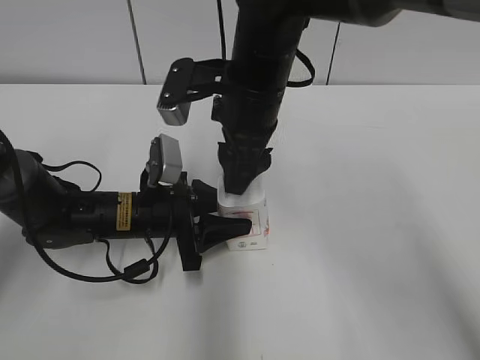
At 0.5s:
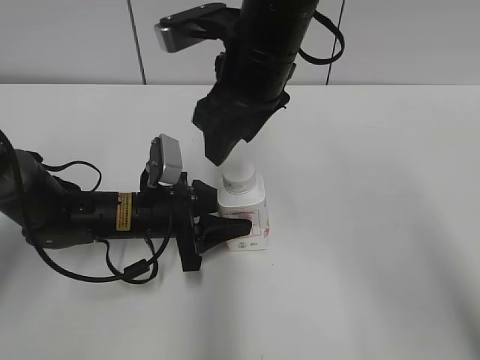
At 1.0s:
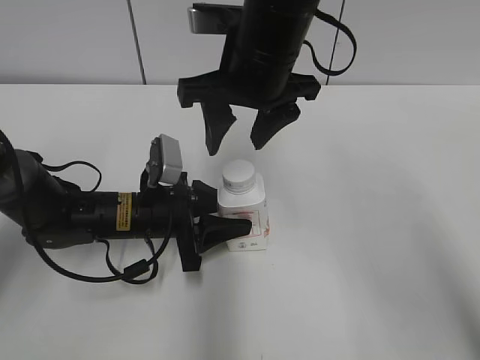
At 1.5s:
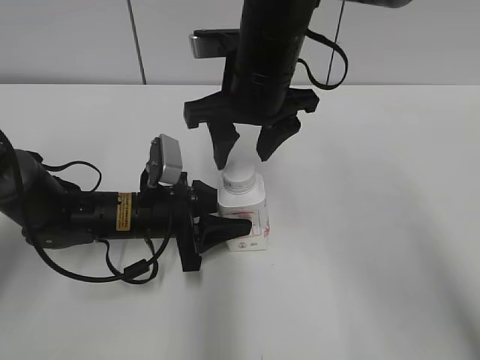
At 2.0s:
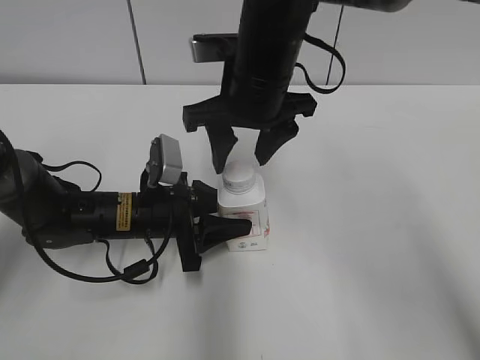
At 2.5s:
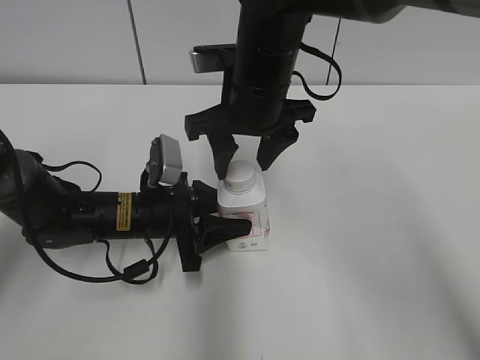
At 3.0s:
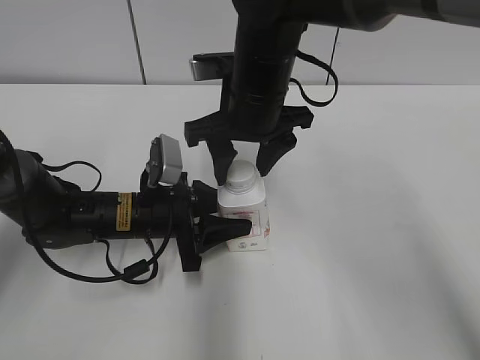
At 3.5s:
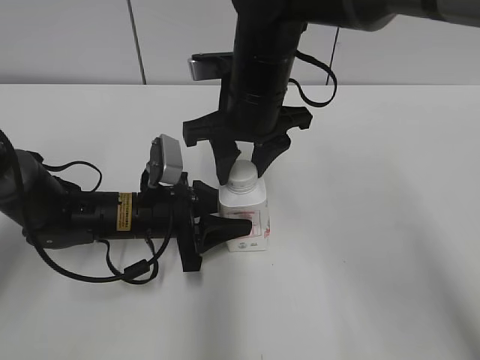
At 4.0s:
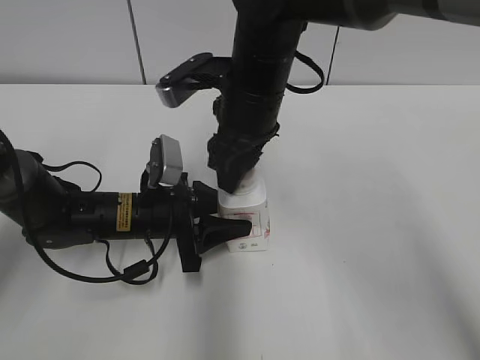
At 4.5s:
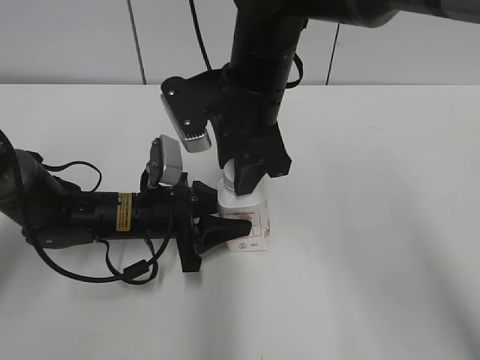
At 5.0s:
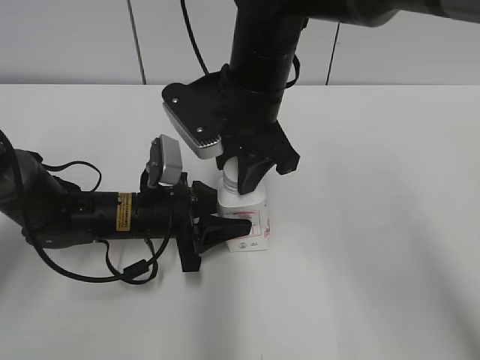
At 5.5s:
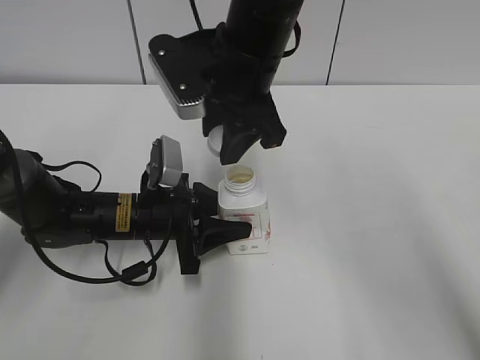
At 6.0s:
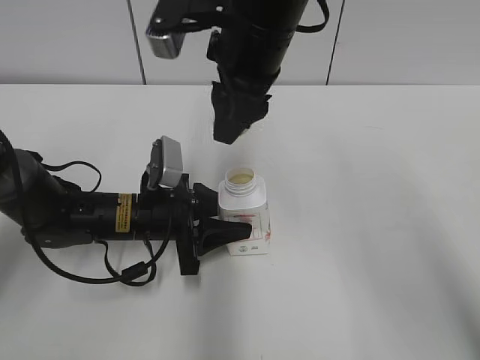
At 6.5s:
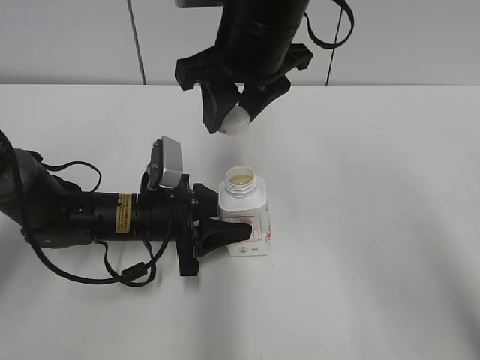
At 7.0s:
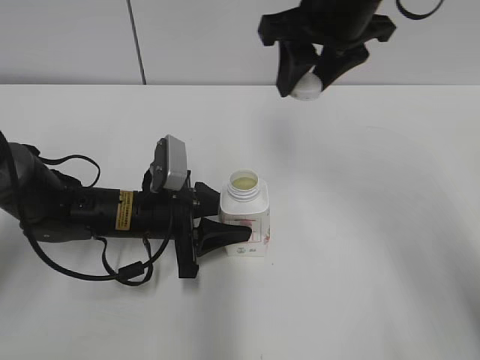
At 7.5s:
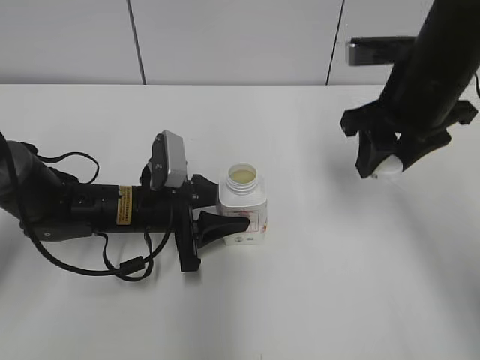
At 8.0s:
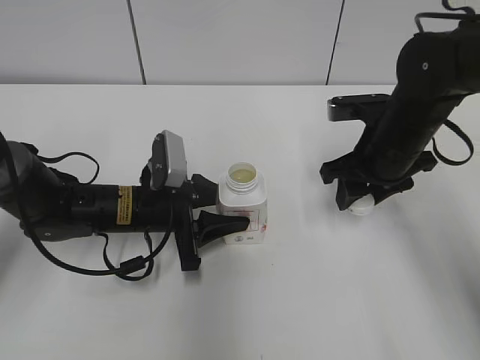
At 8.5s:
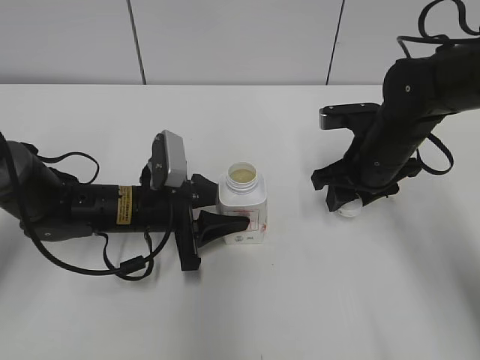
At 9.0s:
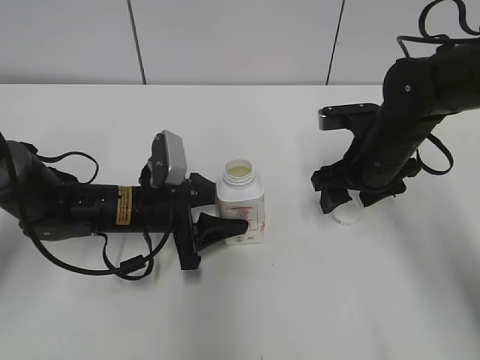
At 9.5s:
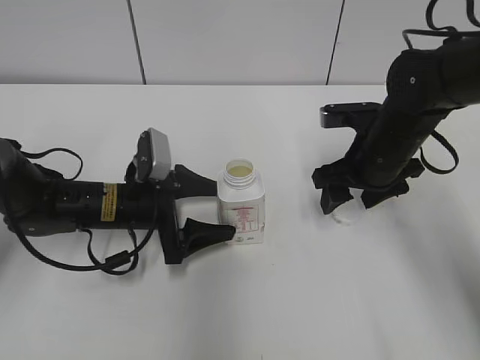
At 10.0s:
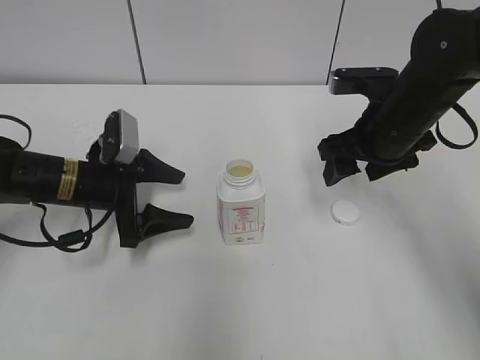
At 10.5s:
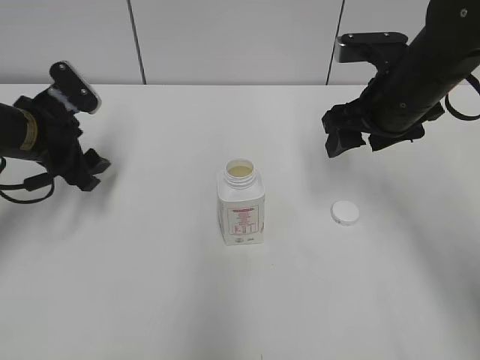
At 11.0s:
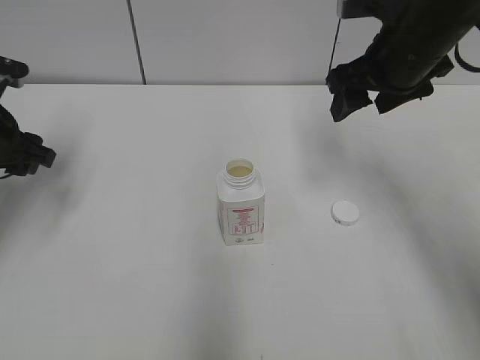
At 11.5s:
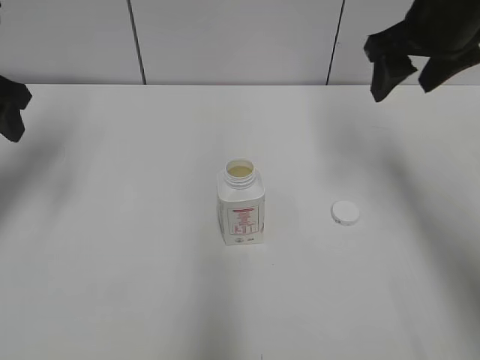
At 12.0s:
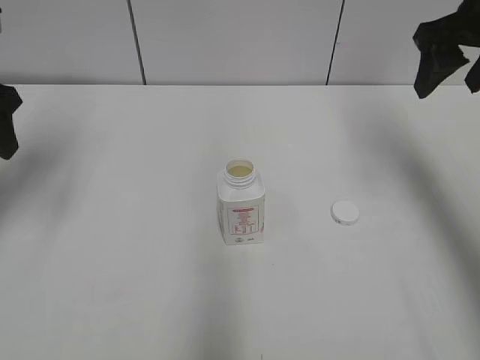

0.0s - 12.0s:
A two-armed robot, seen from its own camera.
Step, 5.5s - 8.5s: Place the bottle cap on the right.
2.0s - 4.0s: The right gripper closes.
4.0s - 6.0s: The right gripper shifts about 5 cm upward.
6.0s - 8.0s: The right gripper travels to the right and downward by some 20 cm.
8.0s - 10.0s: The right gripper opens up; the left gripper is displaced to the left by about 5 cm, and opens.
10.0s - 12.0s: The right gripper shifts approximately 15 cm upward and to the right, while the left gripper travels upward and to the left by some 20 cm.

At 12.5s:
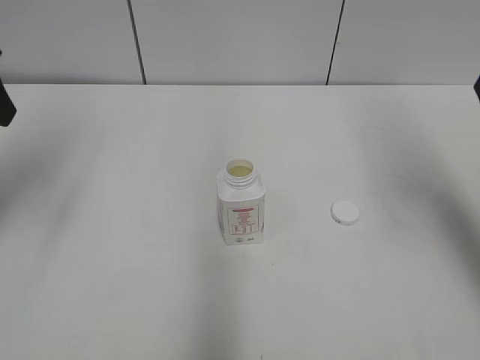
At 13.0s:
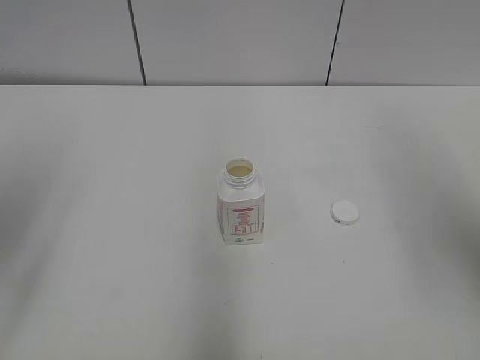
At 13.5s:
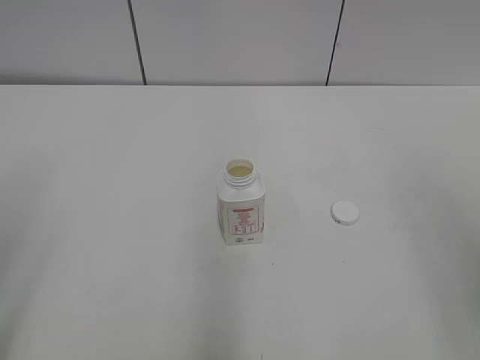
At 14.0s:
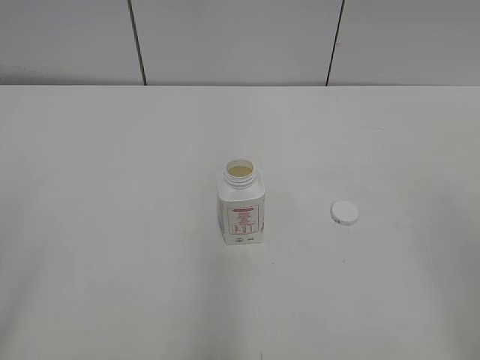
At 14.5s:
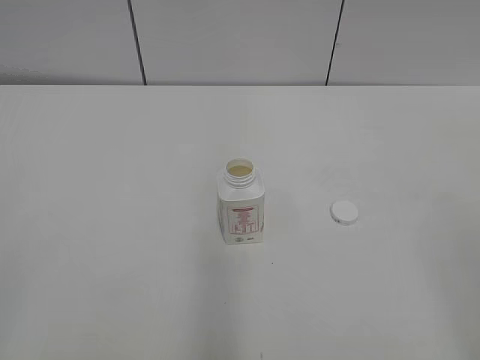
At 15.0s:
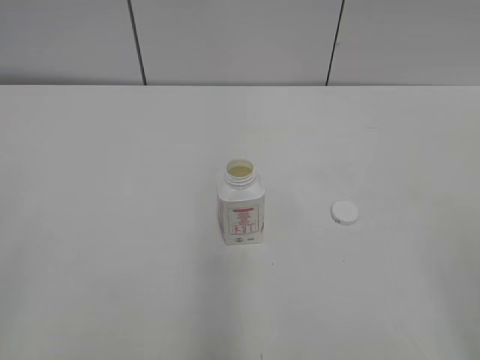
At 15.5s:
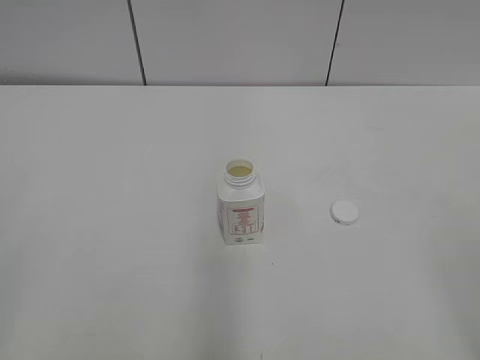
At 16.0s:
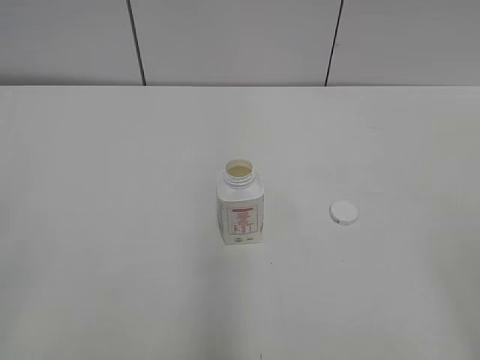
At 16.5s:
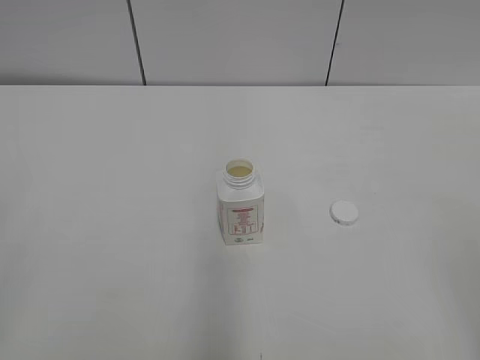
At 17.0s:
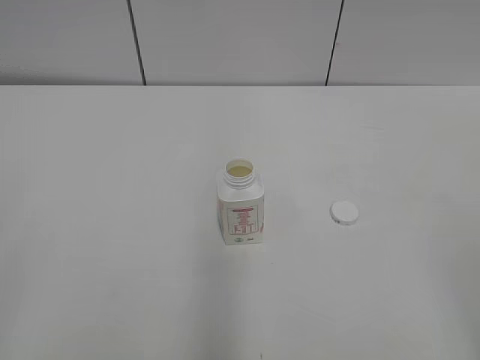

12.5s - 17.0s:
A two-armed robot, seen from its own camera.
12.5s - 14.5s: The grippers both shift backward by some 30 cm.
